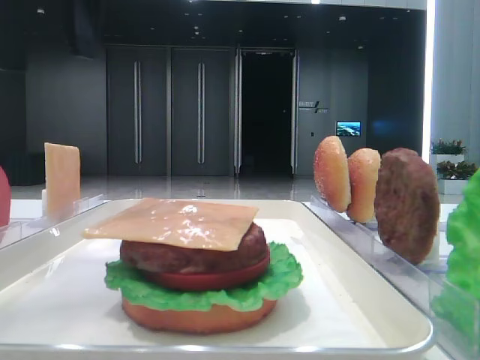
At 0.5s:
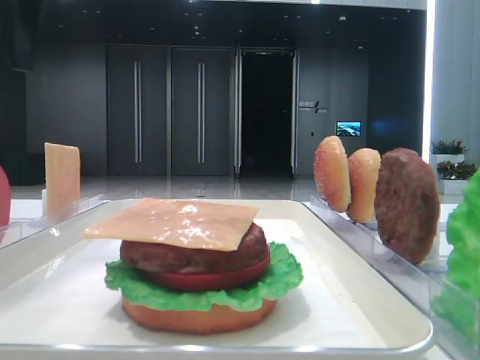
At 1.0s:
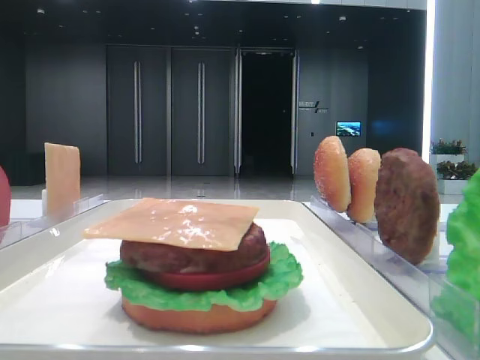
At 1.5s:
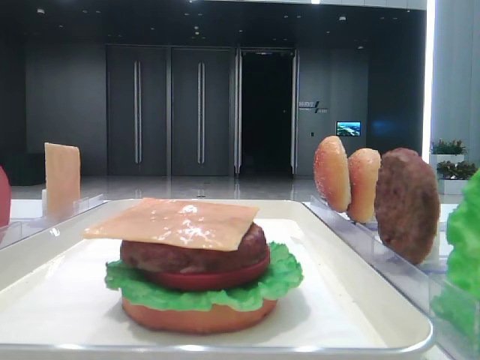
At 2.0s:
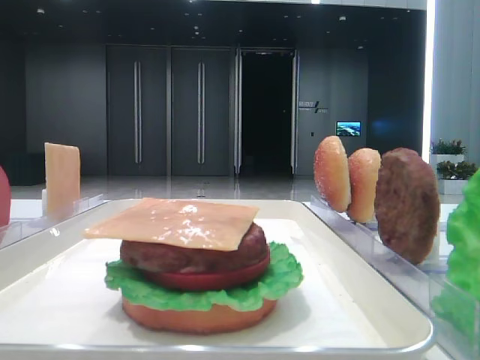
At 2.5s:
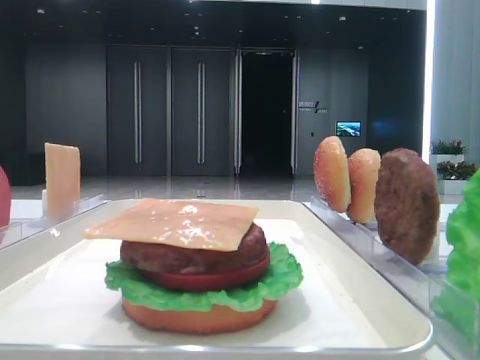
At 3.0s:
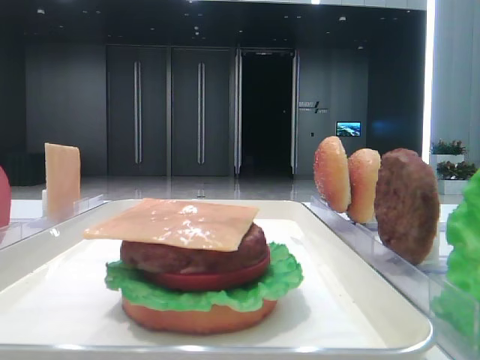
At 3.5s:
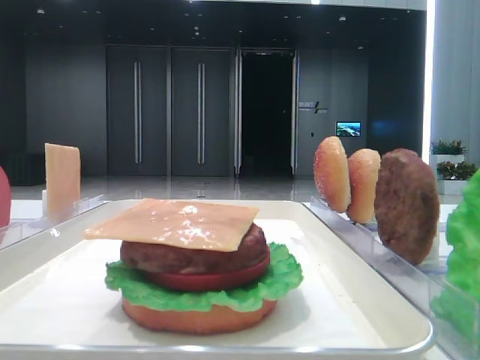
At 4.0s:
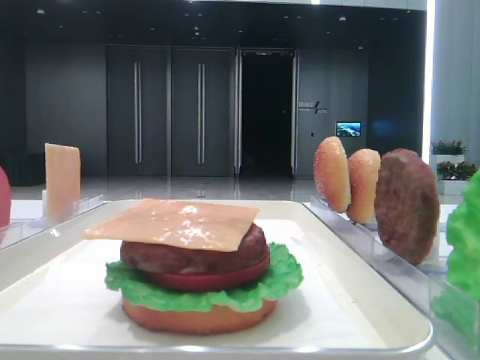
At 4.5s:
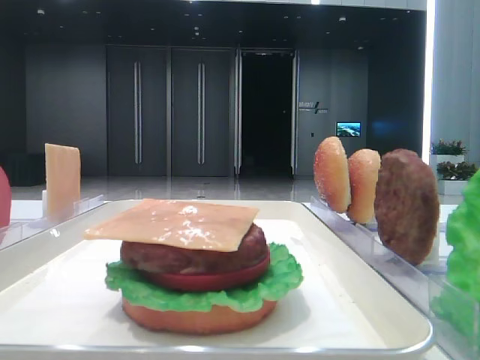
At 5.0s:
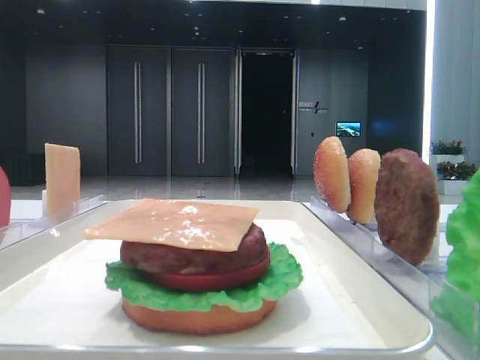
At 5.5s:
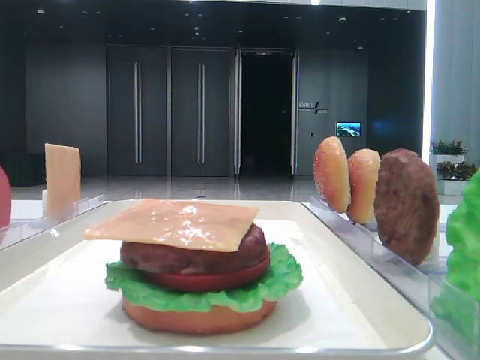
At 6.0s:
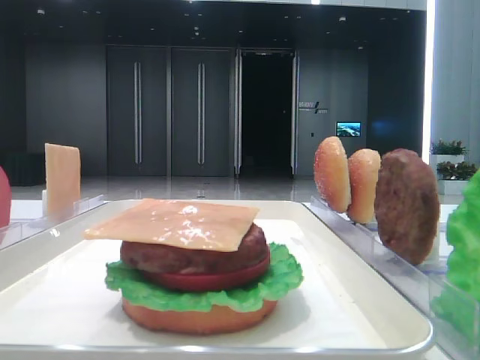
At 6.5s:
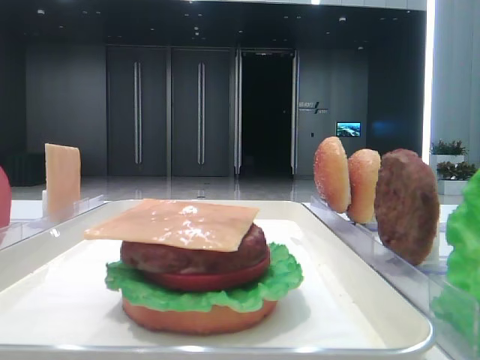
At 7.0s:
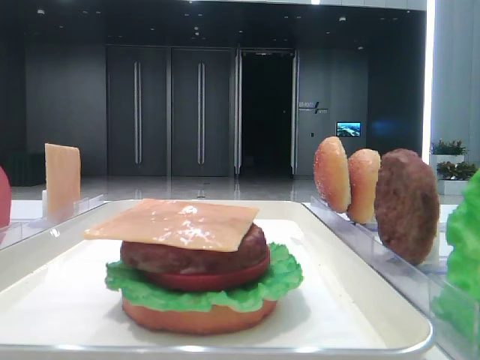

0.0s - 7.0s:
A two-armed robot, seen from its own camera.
0.0s - 2.0s: The left gripper goes approximately 15 cm to the left.
5.0s - 7.0s: Both grippers stay about where they are.

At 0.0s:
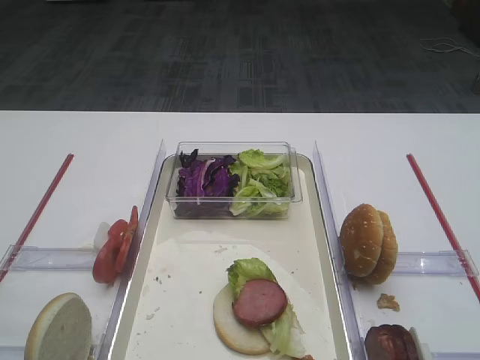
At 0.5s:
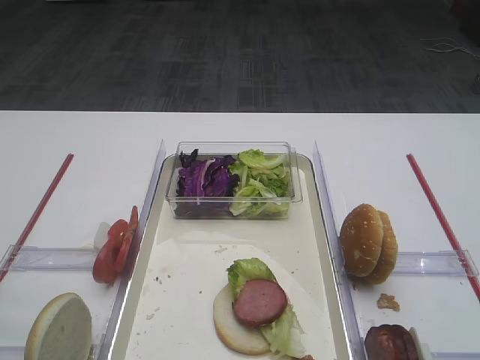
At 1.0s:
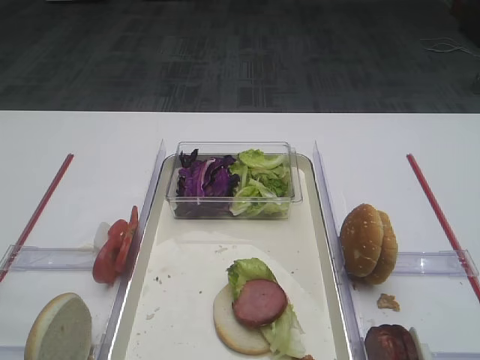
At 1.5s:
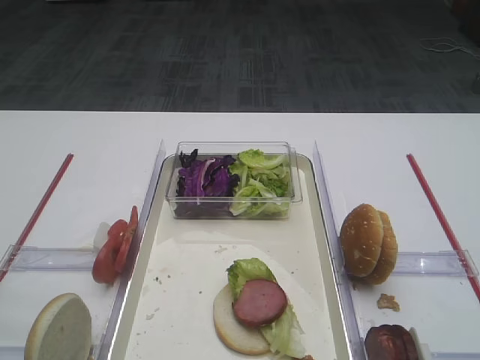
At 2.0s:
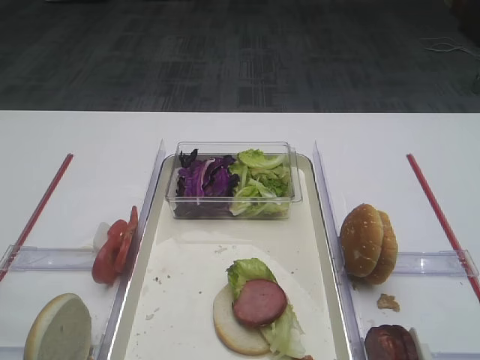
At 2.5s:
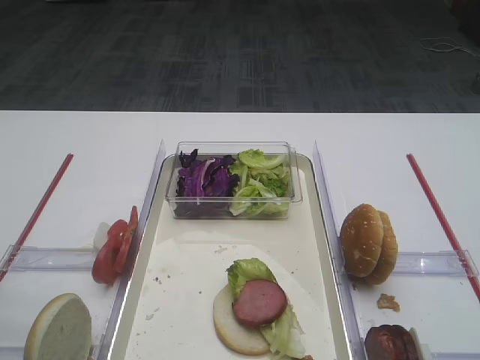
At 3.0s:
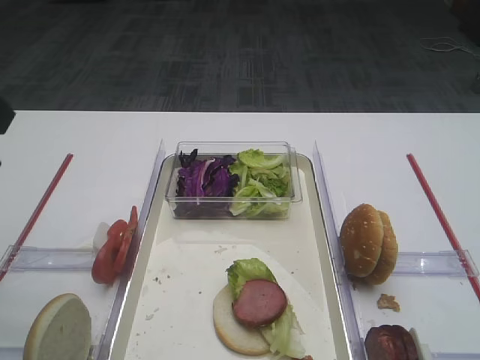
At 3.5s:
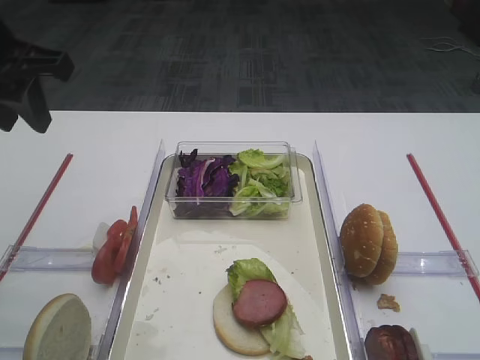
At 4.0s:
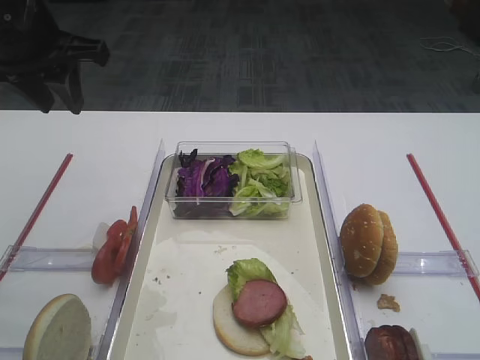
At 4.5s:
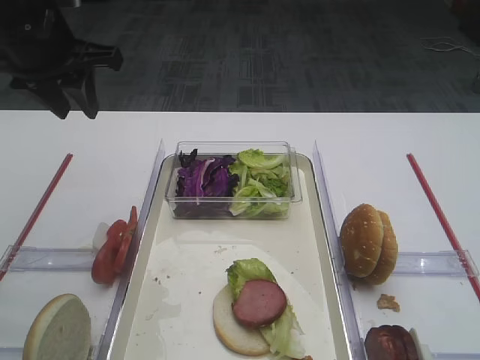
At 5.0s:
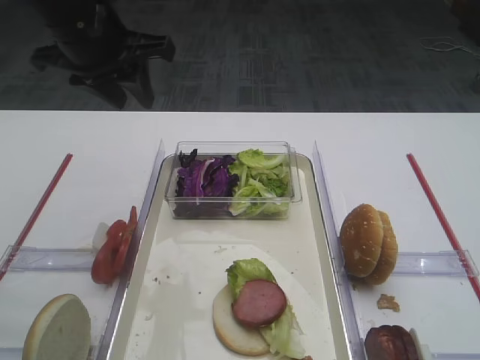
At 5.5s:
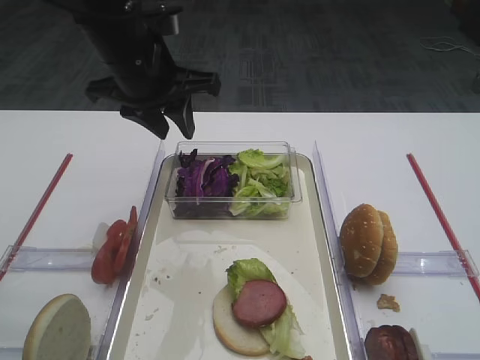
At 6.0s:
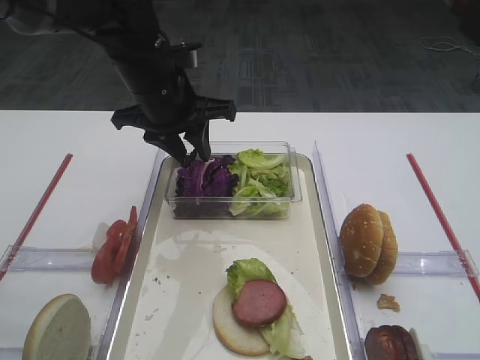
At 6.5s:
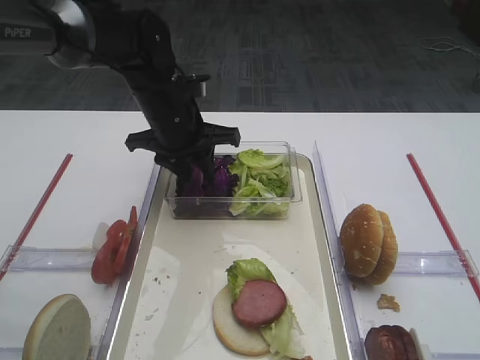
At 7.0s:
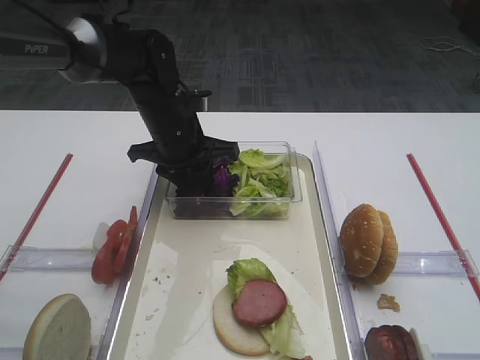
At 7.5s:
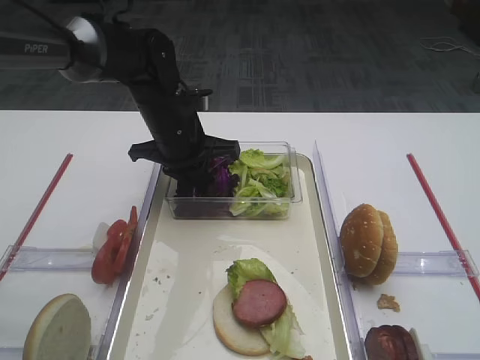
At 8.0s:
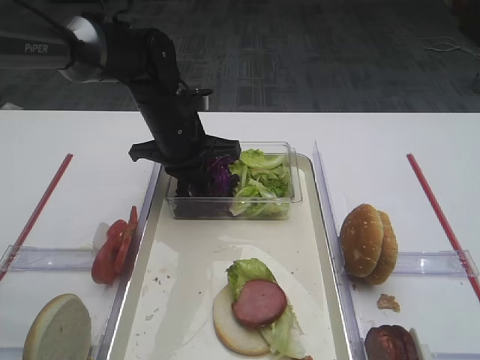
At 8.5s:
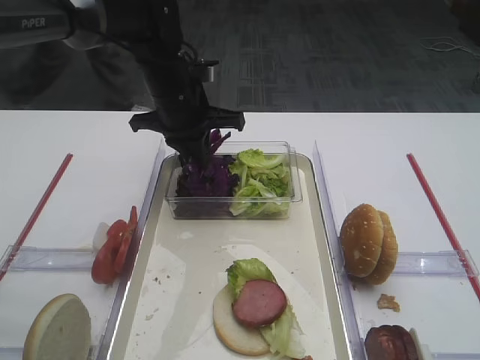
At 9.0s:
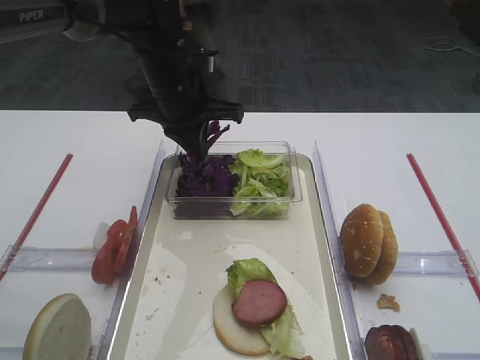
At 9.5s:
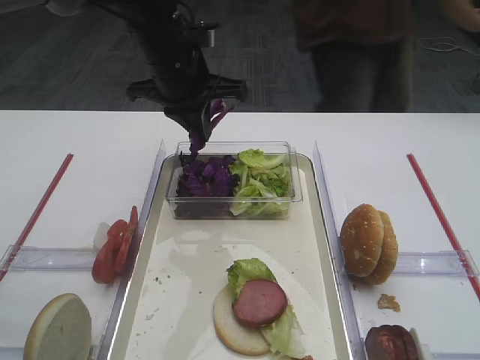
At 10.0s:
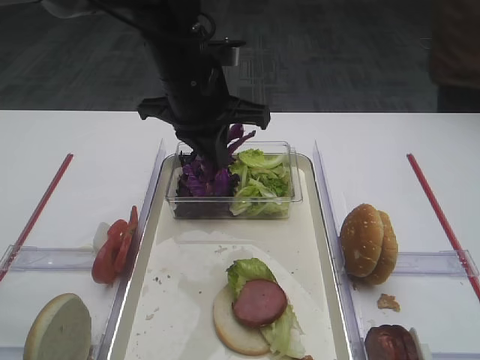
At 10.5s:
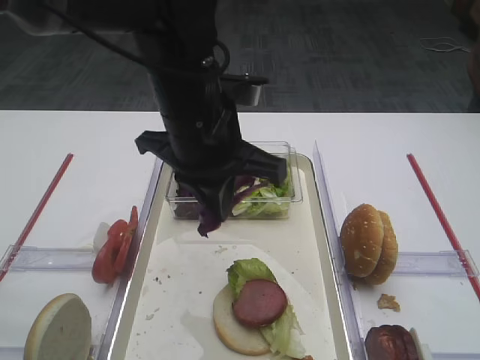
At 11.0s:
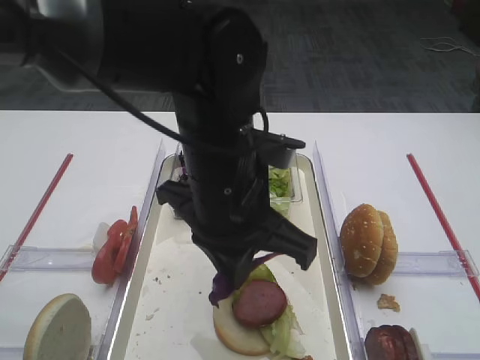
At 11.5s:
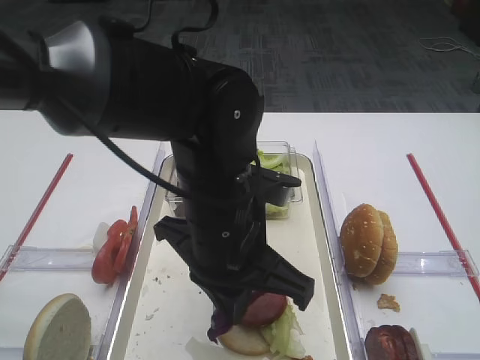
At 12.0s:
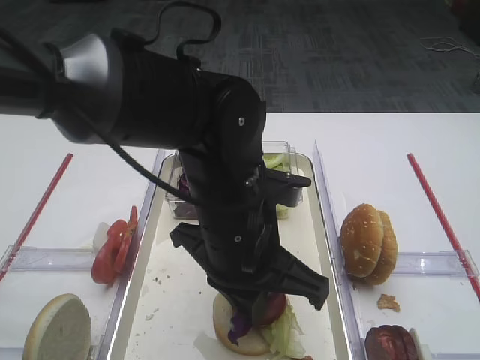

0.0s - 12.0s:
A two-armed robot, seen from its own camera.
Step, 0.0s - 8.5s: Pick up the purple cabbage with the left gripper.
2.0s - 4.0s: The left gripper travels forward by approximately 30 cm.
4.0s - 6.0s: The left gripper goes roughly 15 cm to the right and downward.
6.0s - 8.0s: The left gripper travels downward by some 5 cm, and closes its fingers.
8.0s - 10.0s: The left gripper goes some 10 cm upward and backward.
10.0s - 12.0s: The left gripper heads backward, downward and to the right, covering some 15 cm.

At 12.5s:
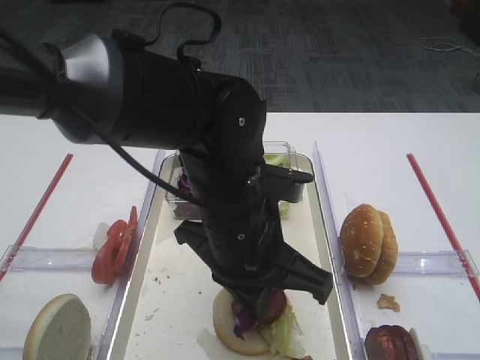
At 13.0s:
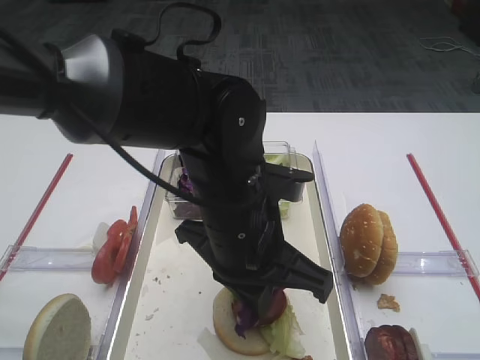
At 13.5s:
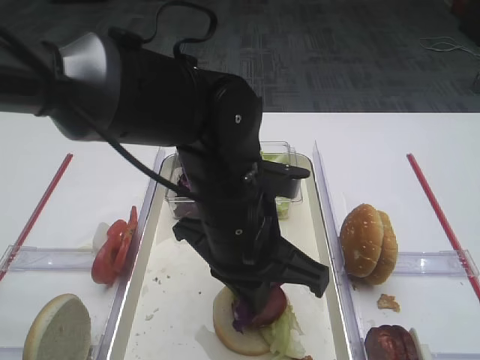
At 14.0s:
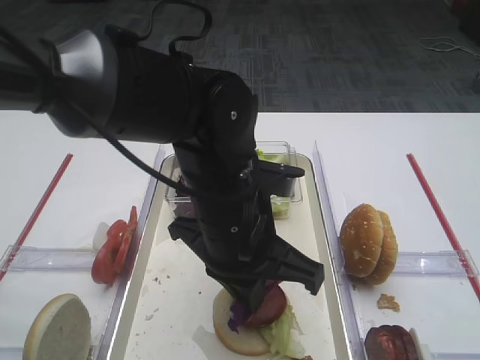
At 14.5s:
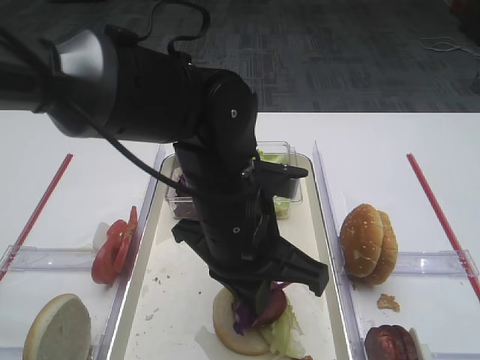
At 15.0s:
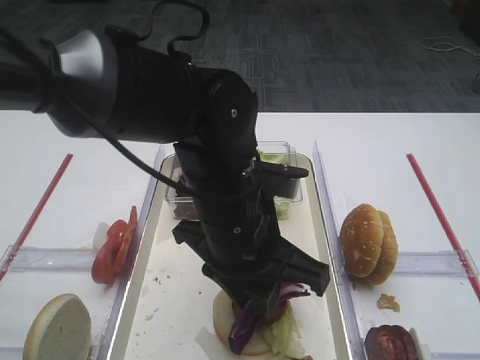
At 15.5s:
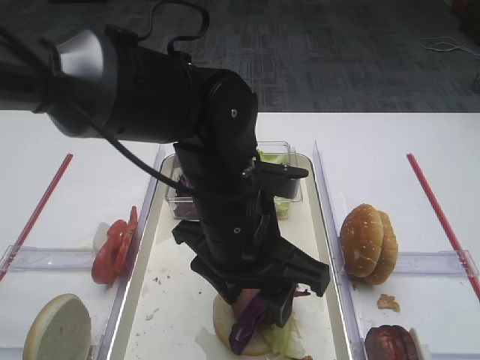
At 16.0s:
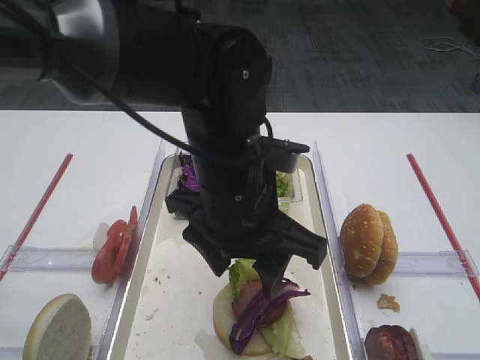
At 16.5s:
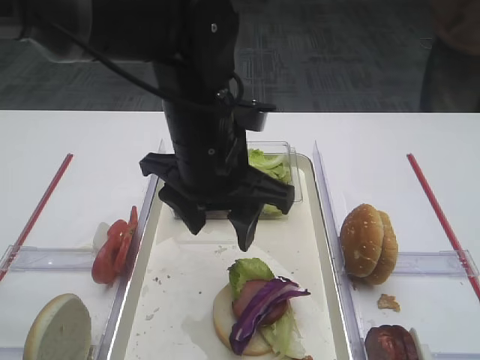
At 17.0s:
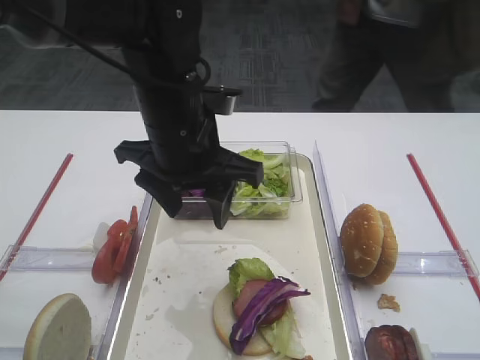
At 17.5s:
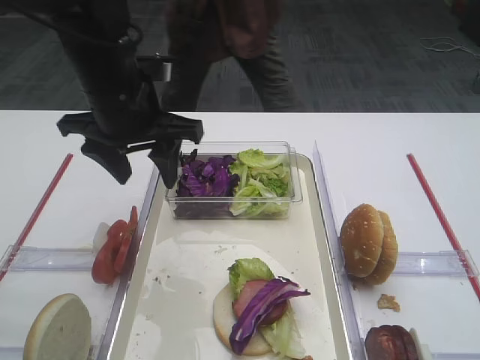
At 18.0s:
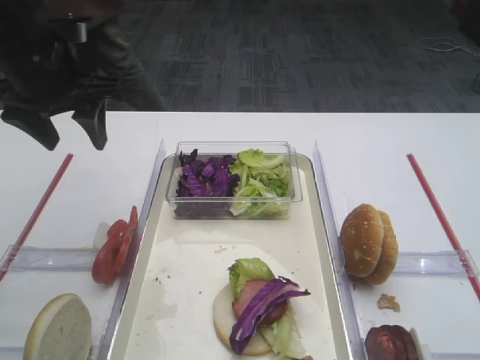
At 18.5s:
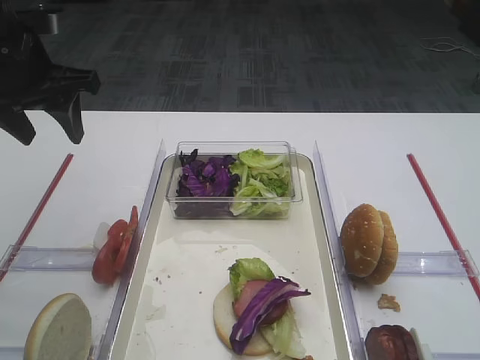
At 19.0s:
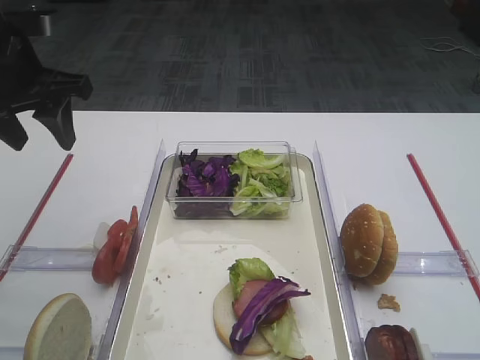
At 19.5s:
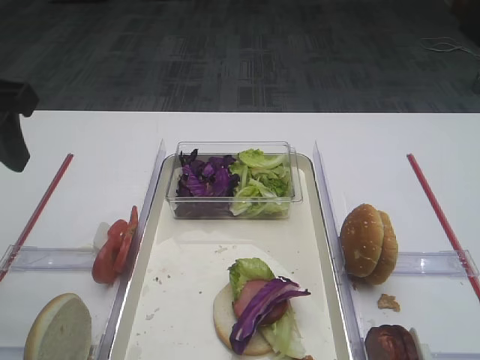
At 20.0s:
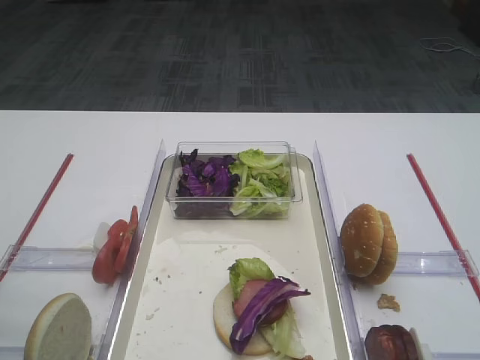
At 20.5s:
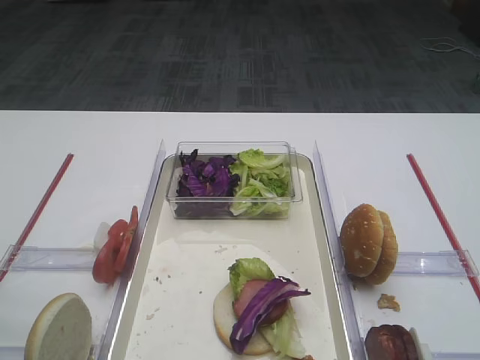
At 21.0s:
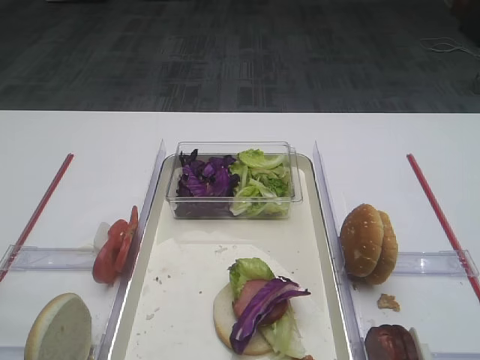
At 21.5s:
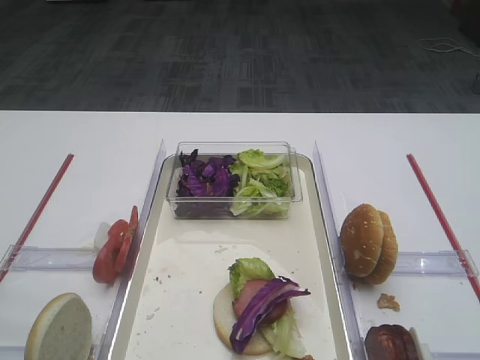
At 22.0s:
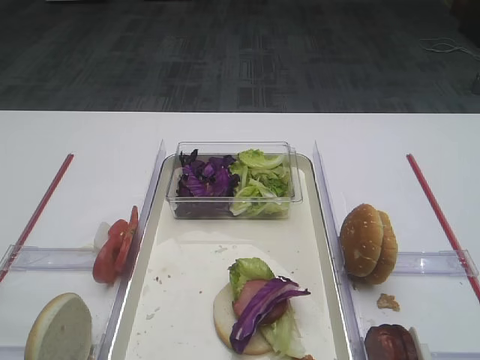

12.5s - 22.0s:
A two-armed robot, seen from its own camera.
Step, 12.5s - 16.0s: Place the purple cabbage on the cutlet with the left gripper.
12.5s - 14.5s: Both grippers stay about where they are.
14.5s - 16.5s: The left gripper changes place by roughly 5 cm, and opens.
16.5s - 18.0s: The left gripper is displaced to the left and forward by some 20 cm.
18.0s - 20.0s: The left gripper goes about 20 cm backward.
